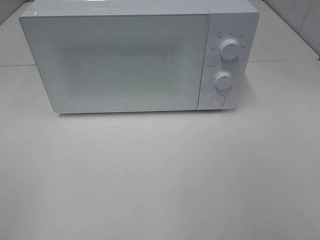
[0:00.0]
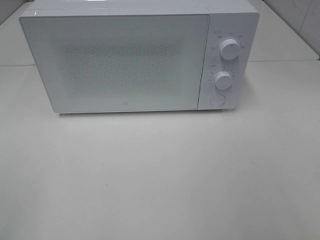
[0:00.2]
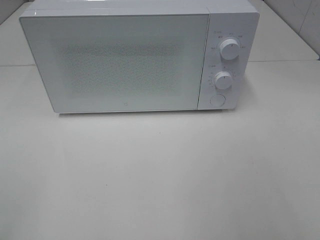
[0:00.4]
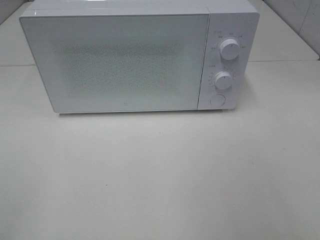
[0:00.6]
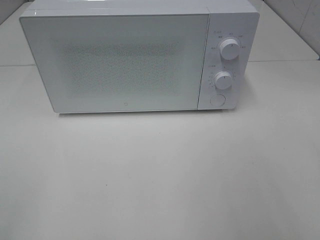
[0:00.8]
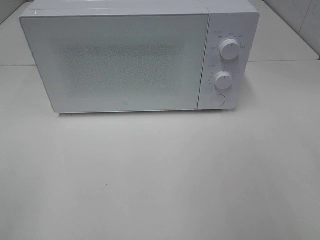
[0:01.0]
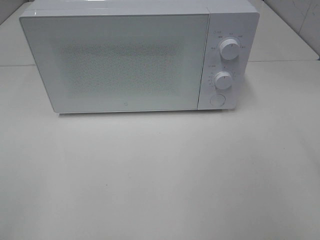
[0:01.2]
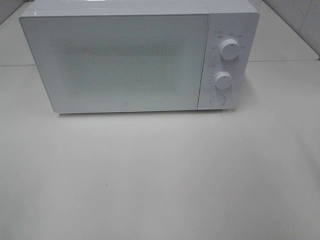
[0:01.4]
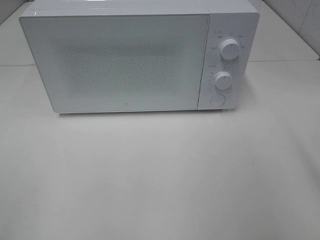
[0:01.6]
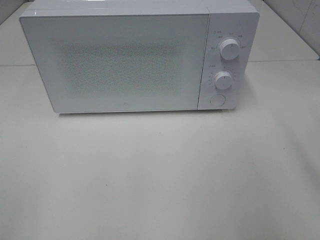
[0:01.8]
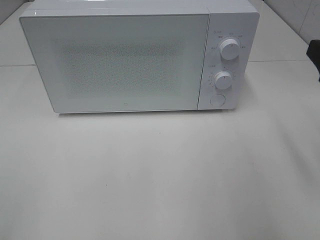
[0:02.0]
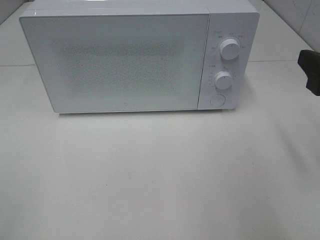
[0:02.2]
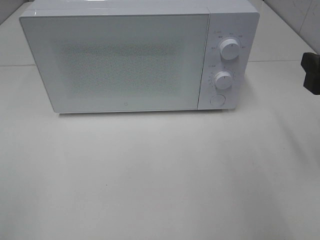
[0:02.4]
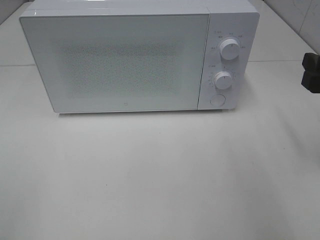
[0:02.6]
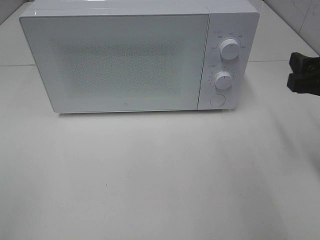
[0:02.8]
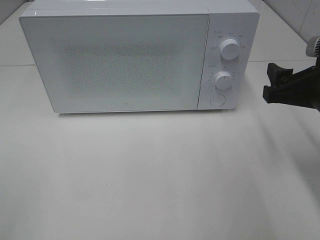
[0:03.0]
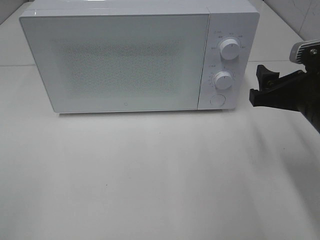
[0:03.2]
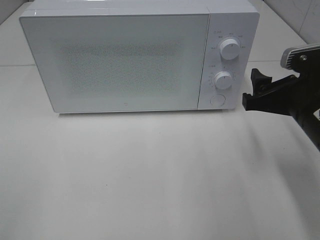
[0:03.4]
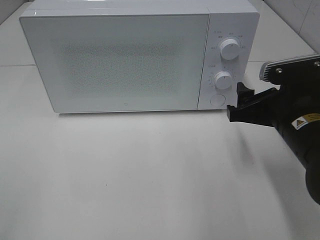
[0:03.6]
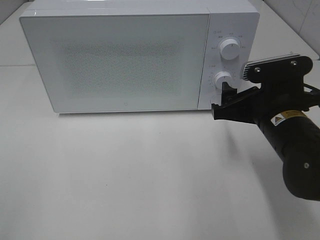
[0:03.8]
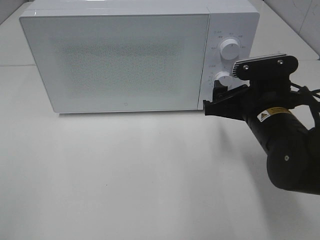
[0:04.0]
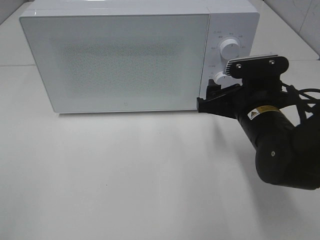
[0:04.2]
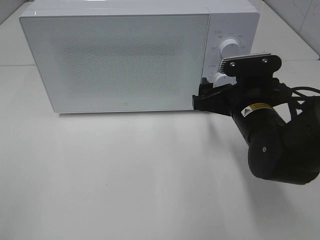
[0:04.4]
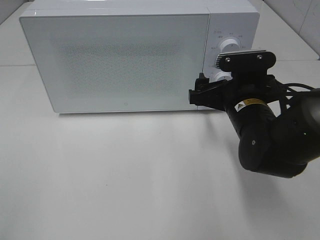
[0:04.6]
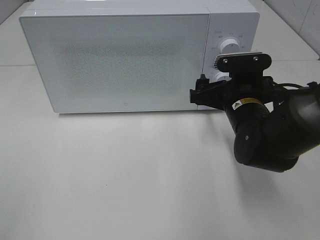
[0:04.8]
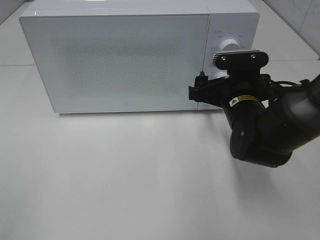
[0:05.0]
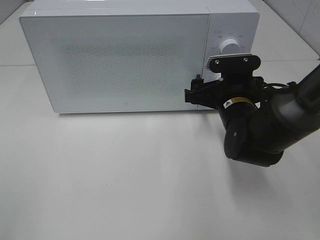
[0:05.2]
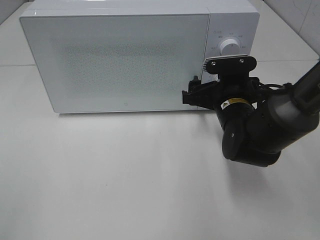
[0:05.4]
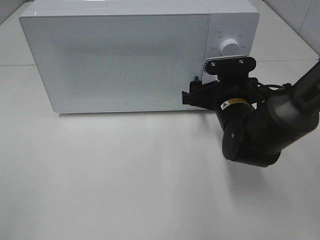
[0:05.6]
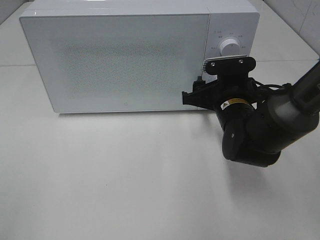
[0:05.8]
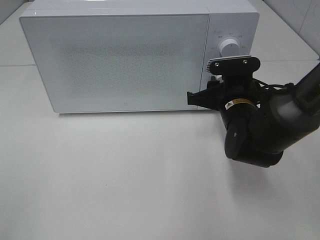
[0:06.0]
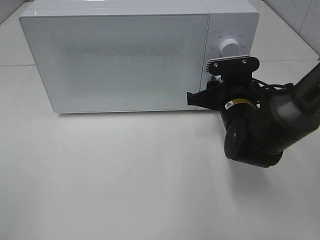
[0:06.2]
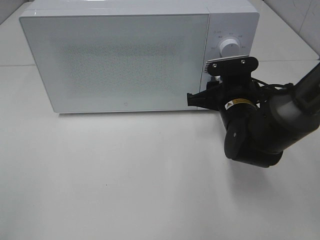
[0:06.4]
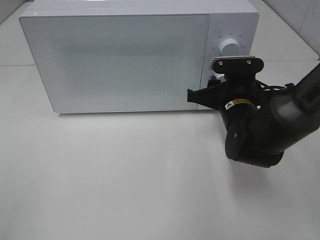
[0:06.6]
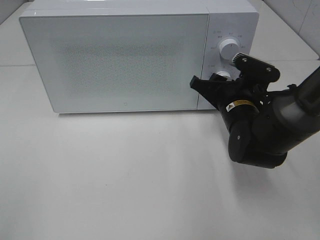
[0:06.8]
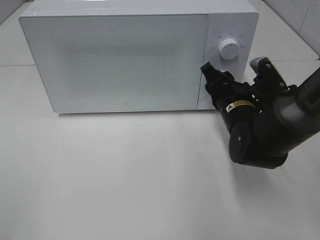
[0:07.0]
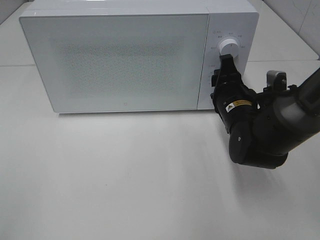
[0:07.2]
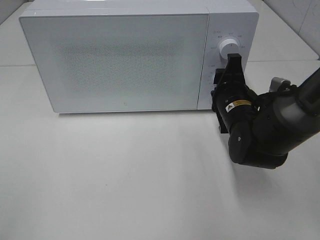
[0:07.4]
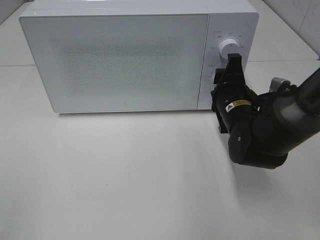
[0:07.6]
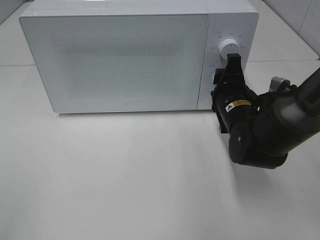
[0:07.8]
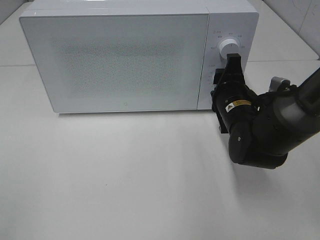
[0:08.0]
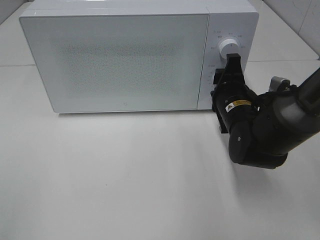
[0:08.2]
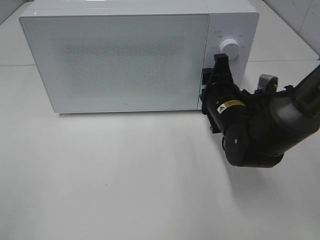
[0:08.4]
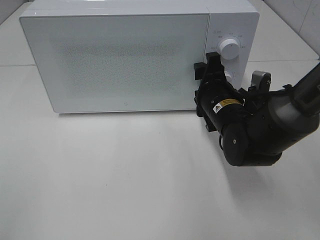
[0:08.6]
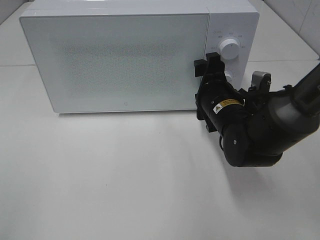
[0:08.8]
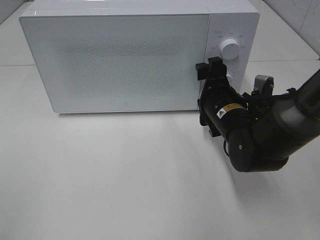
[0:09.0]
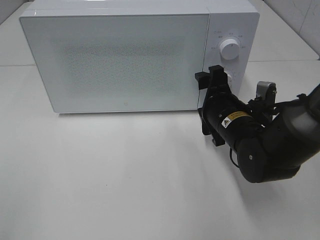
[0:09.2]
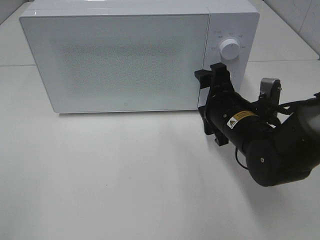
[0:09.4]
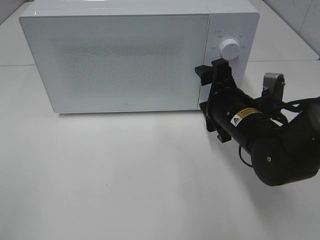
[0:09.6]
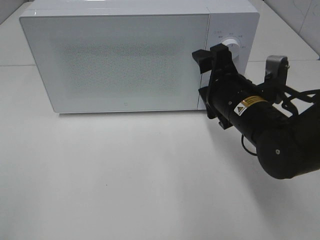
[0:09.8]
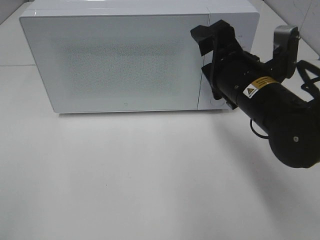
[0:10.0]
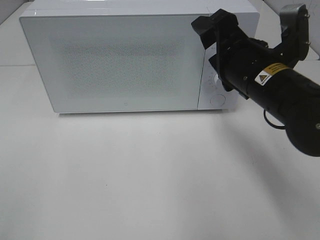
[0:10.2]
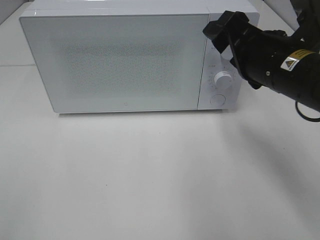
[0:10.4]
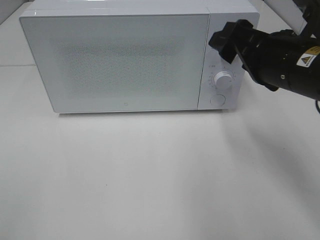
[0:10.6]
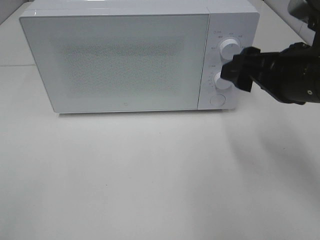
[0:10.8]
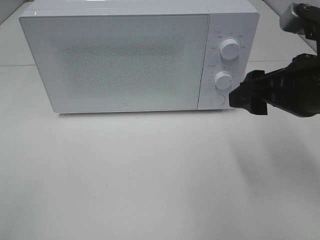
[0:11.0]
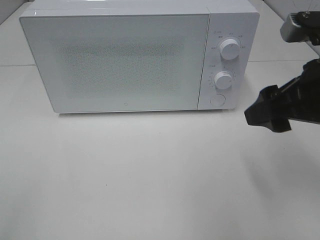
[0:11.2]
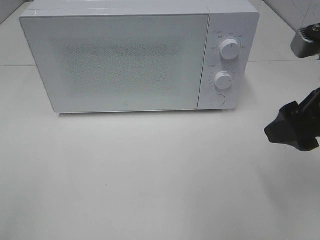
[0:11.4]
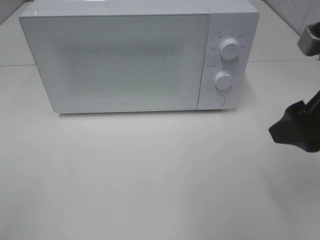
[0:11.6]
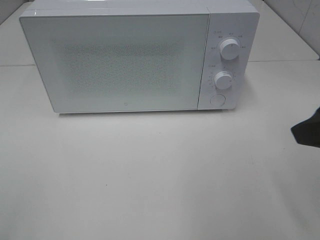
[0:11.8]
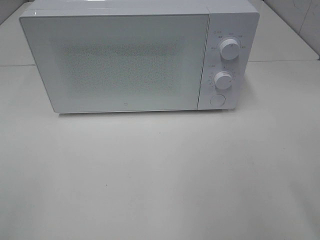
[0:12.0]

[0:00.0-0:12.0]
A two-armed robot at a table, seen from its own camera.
Task of the whole recording: Heat the burger.
Step, 0:00.0 to 0:08.4: Right hand: twist timer button.
0:01.6 to 0:03.0: The right gripper shifts some 10 cm forward and downward.
0:03.0 to 0:04.4: The right gripper is displaced to the left and downward by some 10 cm.
0:04.4 to 0:06.0: The right gripper changes place by about 5 cm, and closes.
0:07.6 to 0:09.0: The right gripper opens.
0:09.0 to 0:10.4: The right gripper heads upward and backward, covering roughly 15 cm.
0:10.4 to 0:12.0: The right gripper goes some 20 cm backward, to the right and upward.

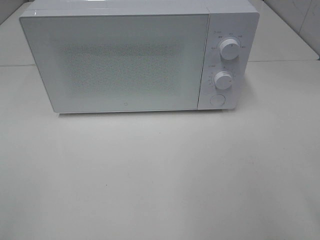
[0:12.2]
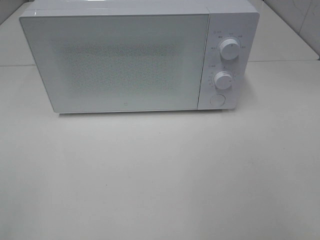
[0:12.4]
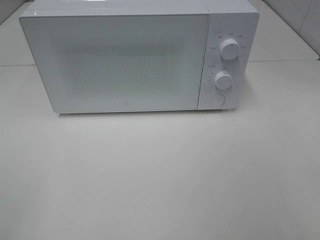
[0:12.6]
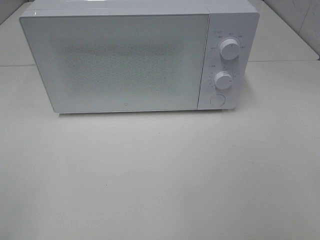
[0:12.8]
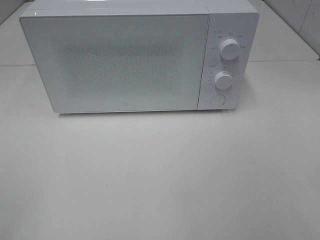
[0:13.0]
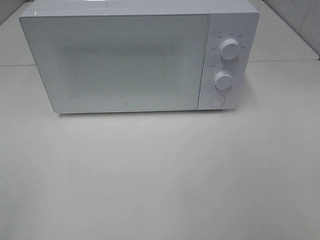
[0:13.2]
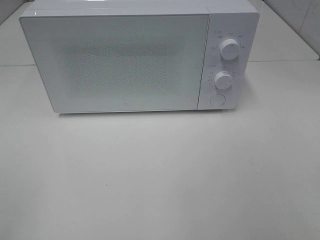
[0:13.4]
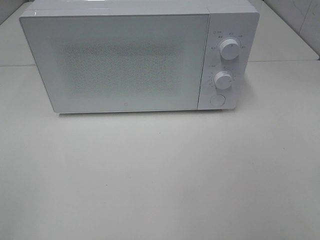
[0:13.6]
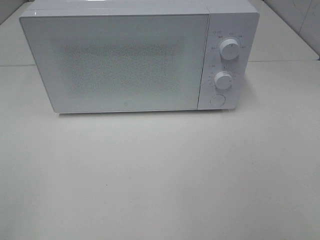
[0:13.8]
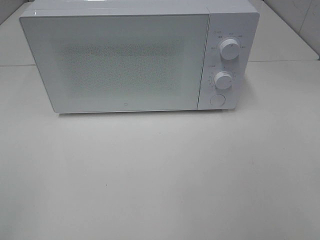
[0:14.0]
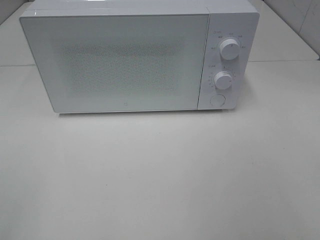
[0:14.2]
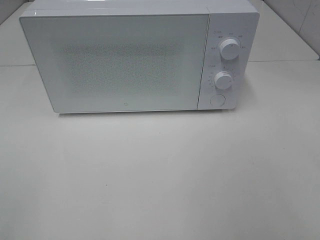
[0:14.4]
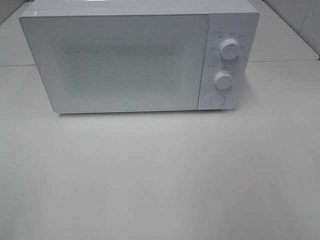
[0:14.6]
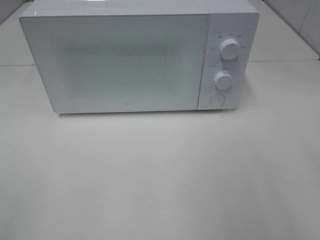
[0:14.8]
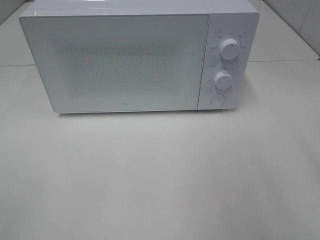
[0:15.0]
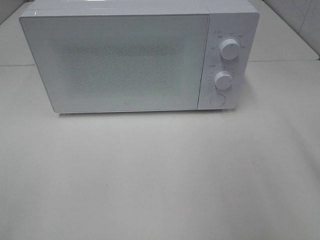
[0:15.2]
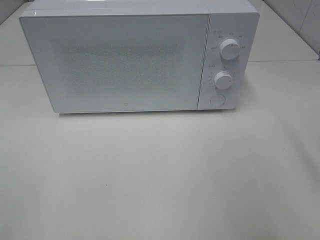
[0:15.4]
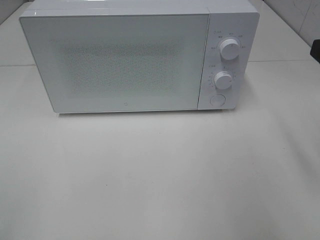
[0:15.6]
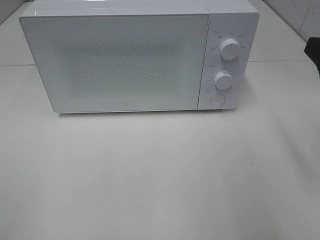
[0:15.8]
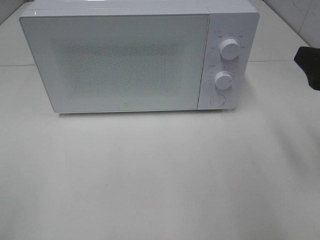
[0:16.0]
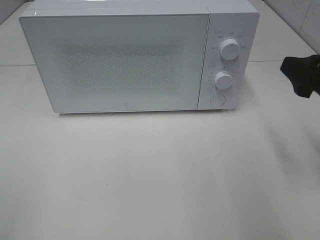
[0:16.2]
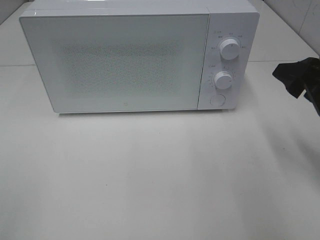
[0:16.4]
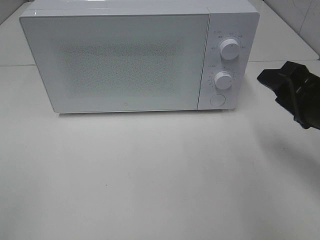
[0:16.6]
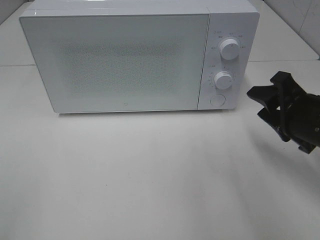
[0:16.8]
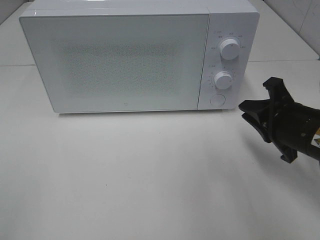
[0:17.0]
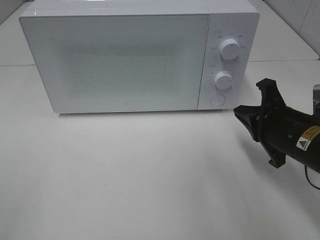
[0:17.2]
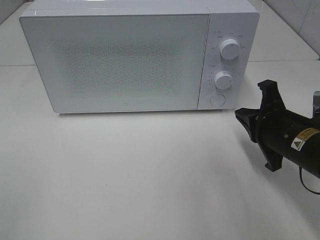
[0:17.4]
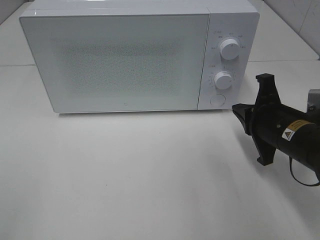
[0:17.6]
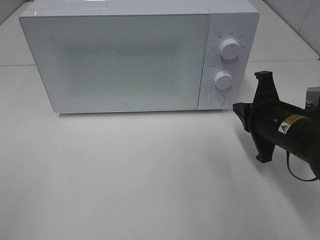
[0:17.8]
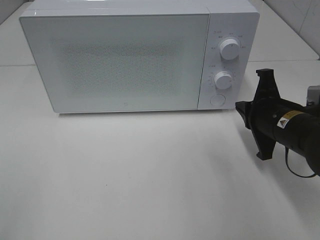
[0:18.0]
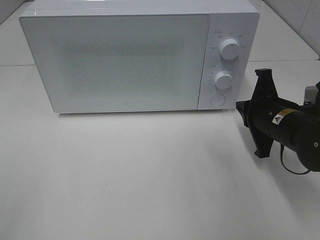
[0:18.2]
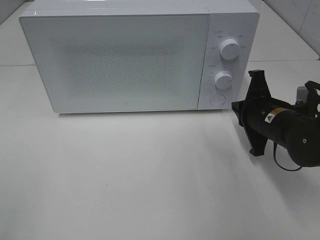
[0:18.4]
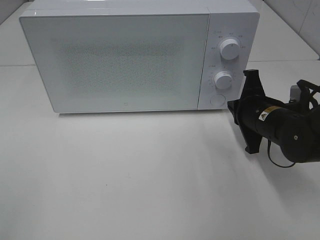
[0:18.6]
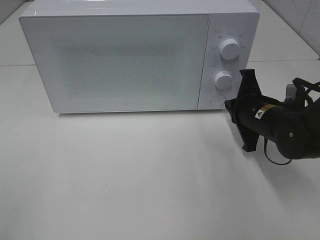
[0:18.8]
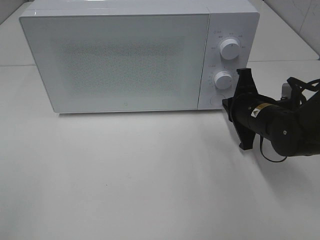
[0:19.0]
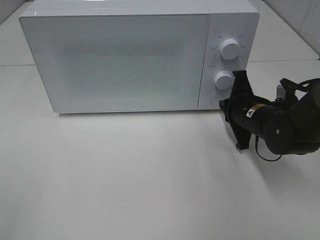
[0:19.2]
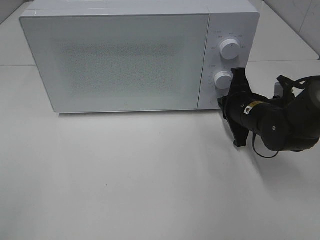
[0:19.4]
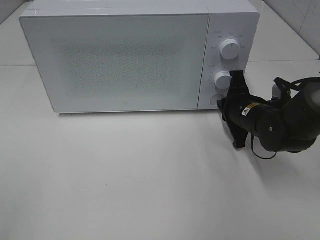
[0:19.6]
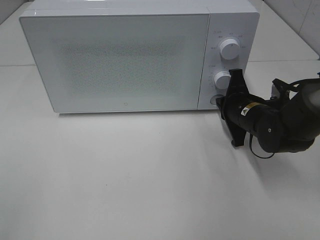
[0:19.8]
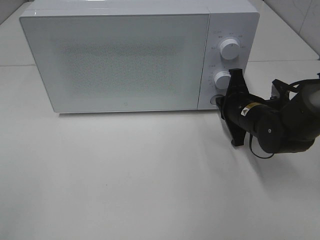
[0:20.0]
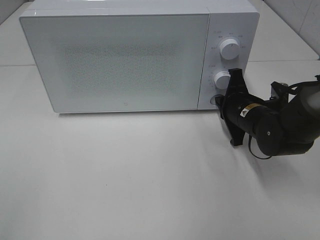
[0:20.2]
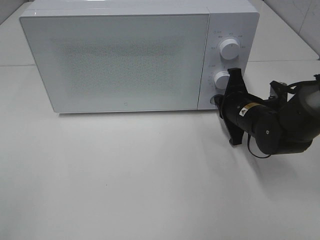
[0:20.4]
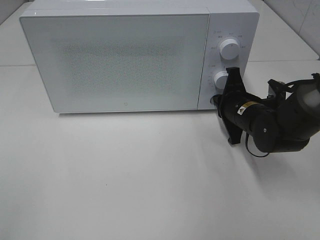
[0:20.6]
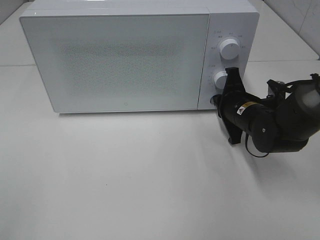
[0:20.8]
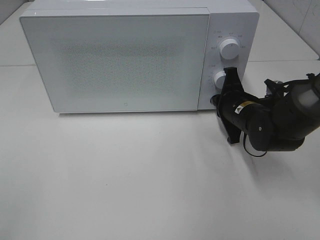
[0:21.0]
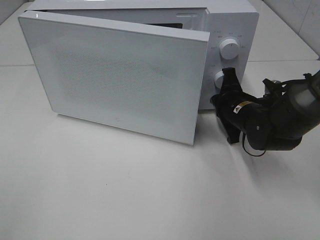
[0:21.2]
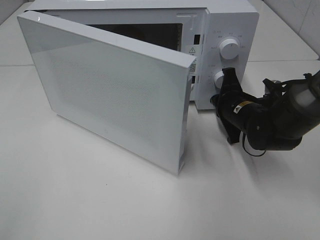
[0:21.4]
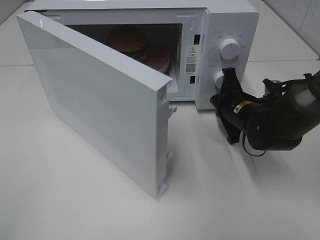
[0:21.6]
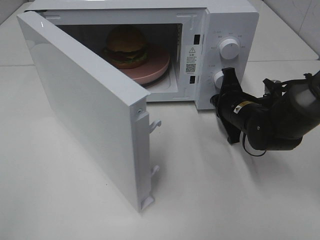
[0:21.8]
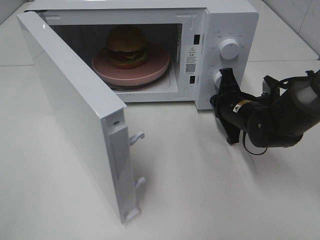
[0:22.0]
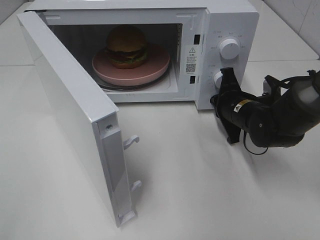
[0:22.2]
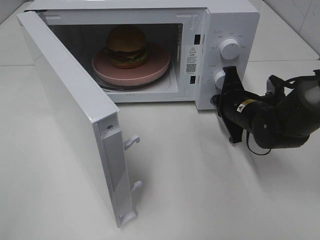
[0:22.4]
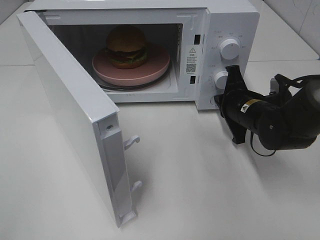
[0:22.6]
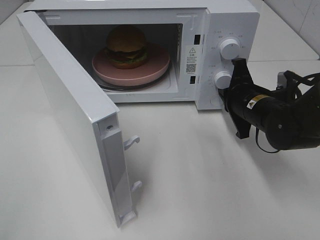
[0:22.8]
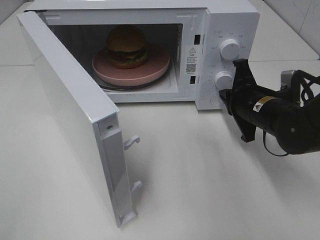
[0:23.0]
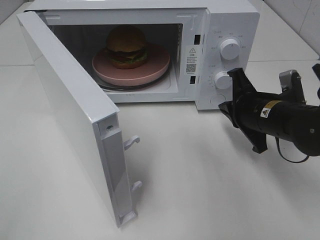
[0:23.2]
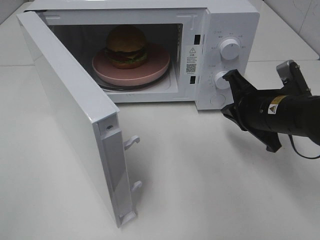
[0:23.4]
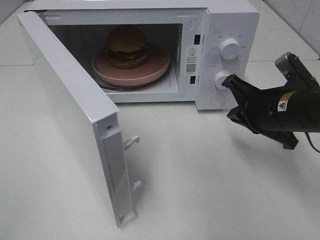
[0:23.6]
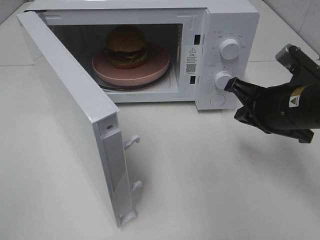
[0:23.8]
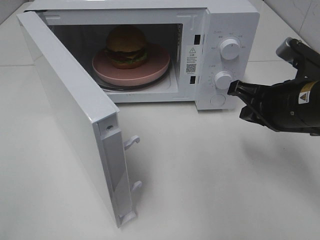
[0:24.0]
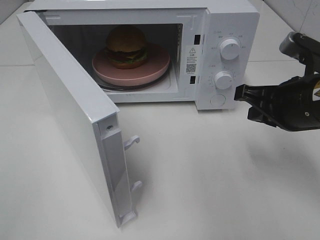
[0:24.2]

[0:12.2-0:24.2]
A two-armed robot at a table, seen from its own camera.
Task of the whole recording: Heat the burger.
Step, 0:12.2 to 0:22.8: Right hand: press the switch.
0:15.2 to 0:16.6: The right gripper goes about 15 cm downward and forward.
0:16.6 to 0:18.2: The right gripper heads downward and forward, covering about 10 cm, and closes.
0:18.2 to 0:19.8: The right gripper goes some 5 cm forward.
0:19.8 to 0:21.2: The grippers move only a little.
0:22.6 to 0:24.2: The right gripper moves upward and backward, roughly 15 cm.
